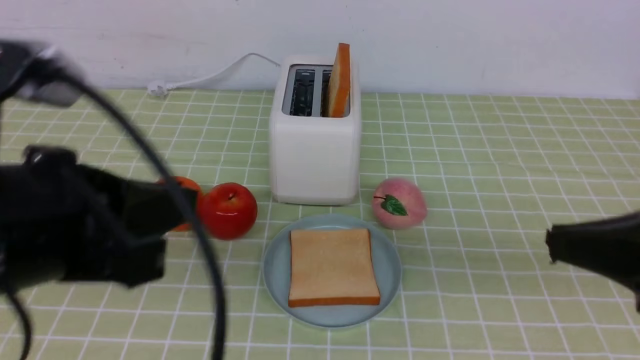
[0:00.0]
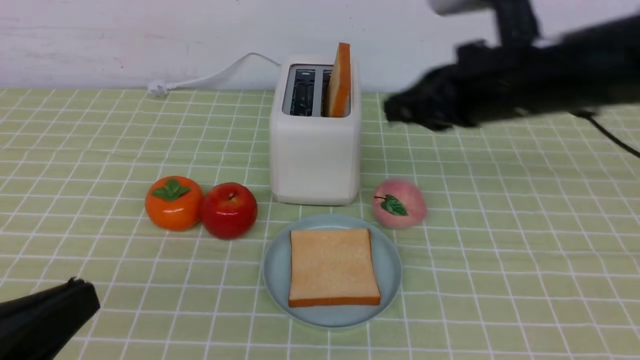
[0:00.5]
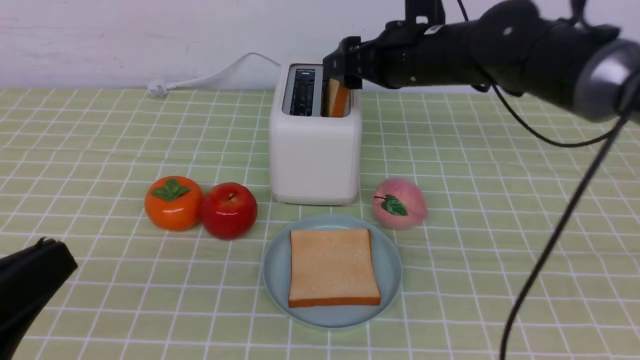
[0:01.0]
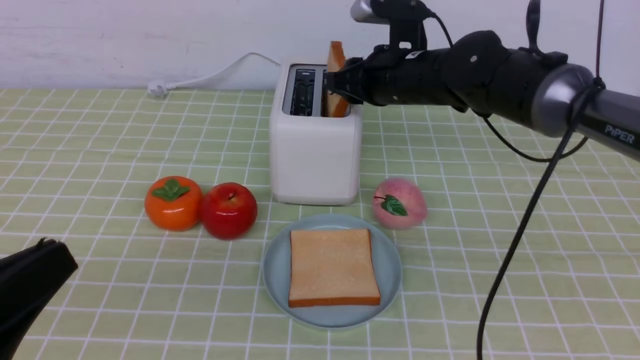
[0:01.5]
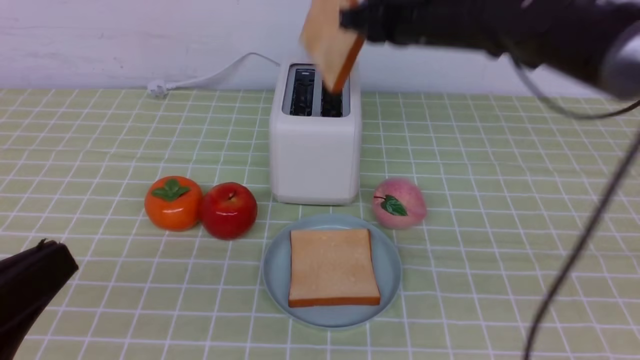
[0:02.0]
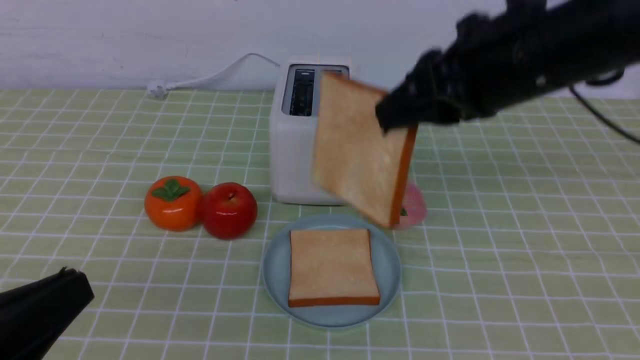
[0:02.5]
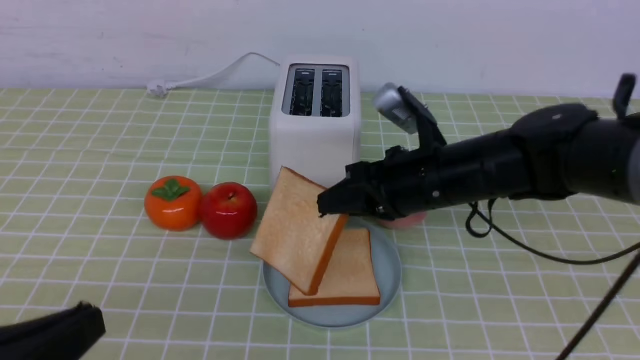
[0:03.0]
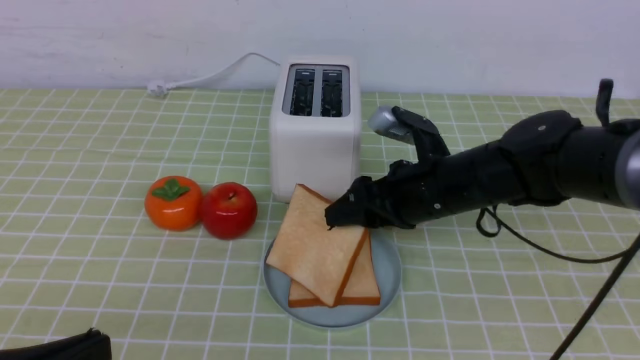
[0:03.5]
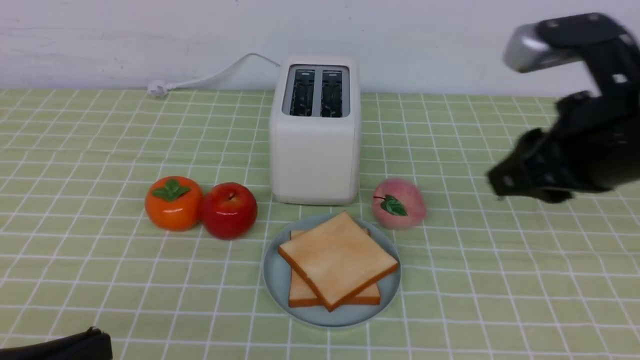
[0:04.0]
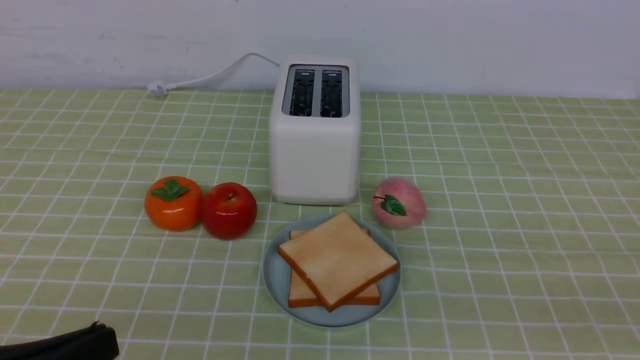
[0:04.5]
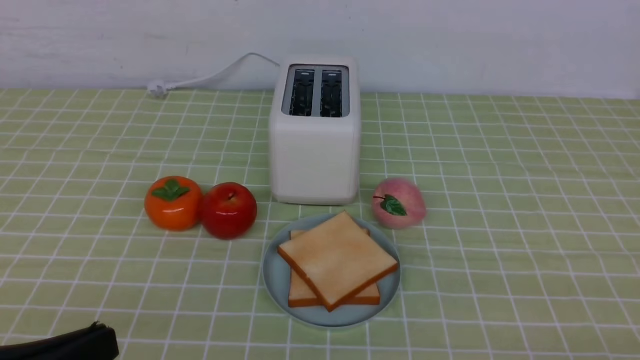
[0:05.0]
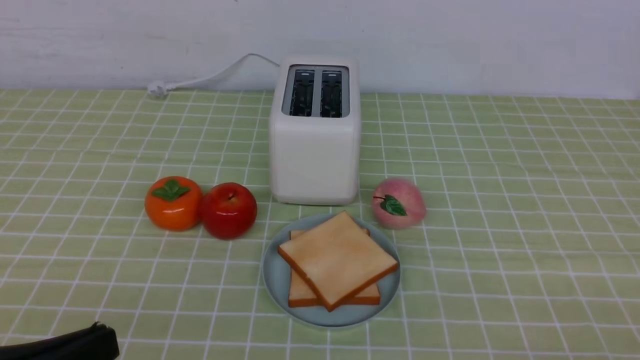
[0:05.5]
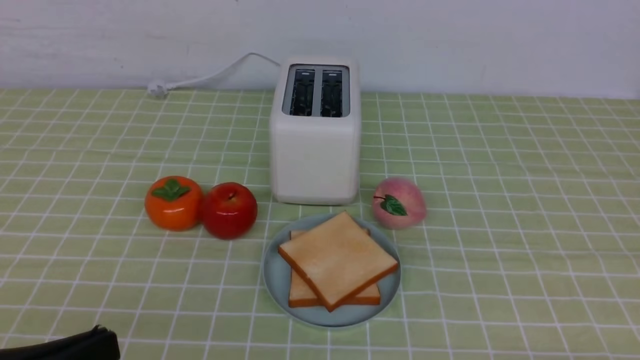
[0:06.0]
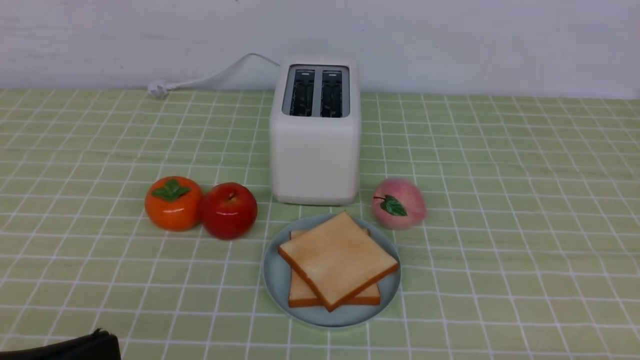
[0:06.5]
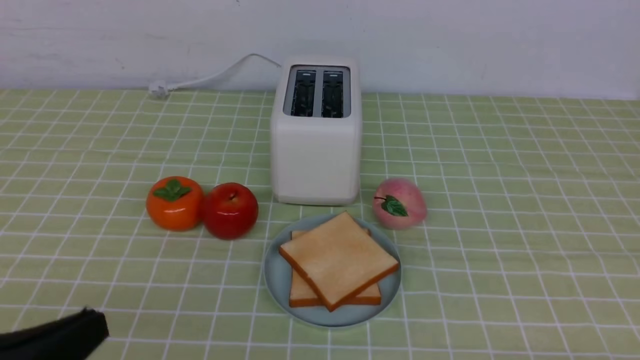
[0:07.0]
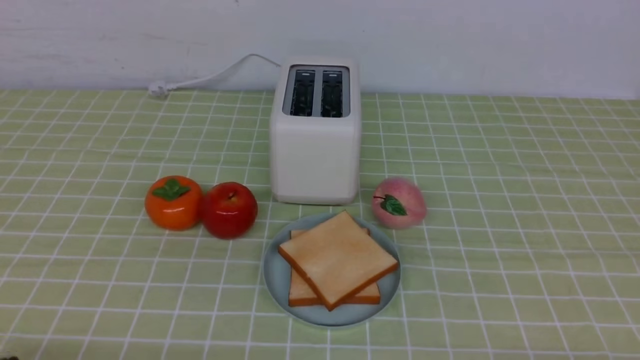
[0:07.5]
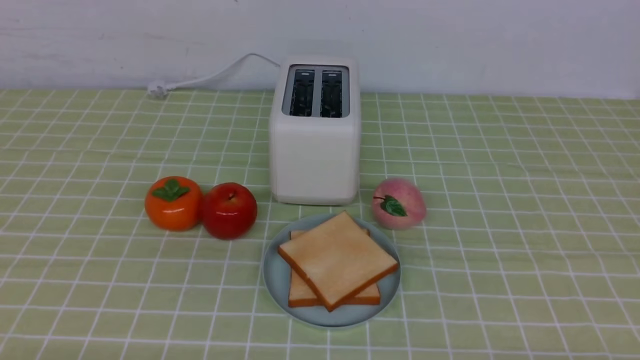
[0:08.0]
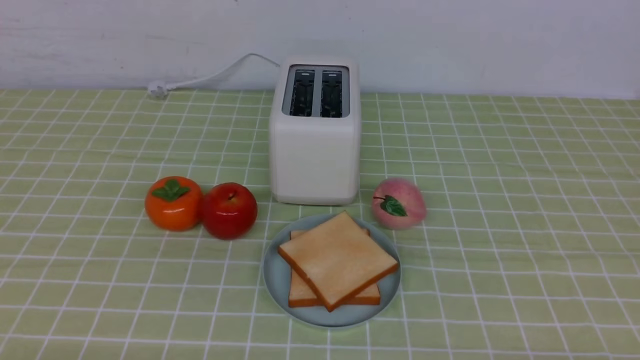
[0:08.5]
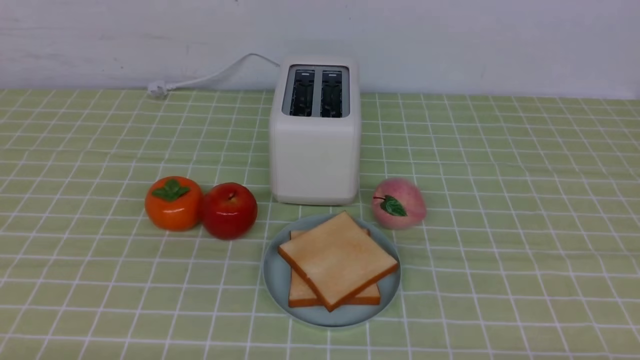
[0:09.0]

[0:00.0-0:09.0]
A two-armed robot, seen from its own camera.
Task of the whole recording: take toasted bread from bread machine on green coffee tablecloth place on plate.
Step, 0:00.0 to 0:02.0: use the right arm to take out a slice of bread.
Step, 0:02.5 to 0:04.0: use the right arm to put a slice of bread into the plate.
0:00.0 to 0:02.0: The right gripper shifts roughly 30 cm forward and to the left, and opens, then closes again. Meanwhile the left gripper heads backward and downward, covering about 10 cm.
0:02.0 to 0:04.5: The right gripper is displaced backward and to the right by about 35 cm, and opens and closes again.
0:07.0 to 0:09.0: The left gripper is displaced downward by about 10 cm.

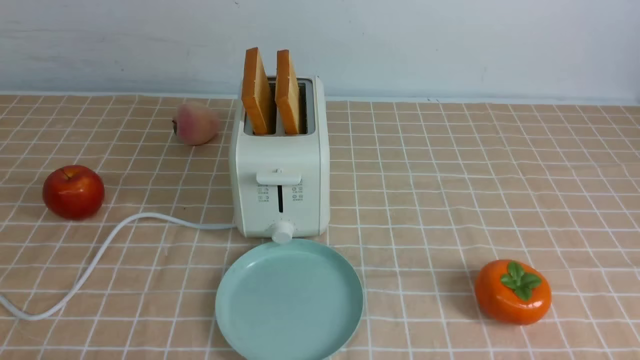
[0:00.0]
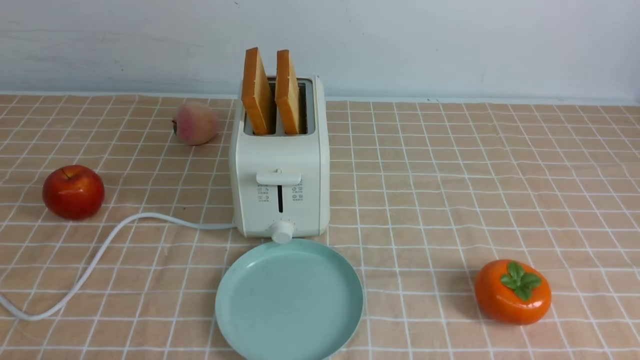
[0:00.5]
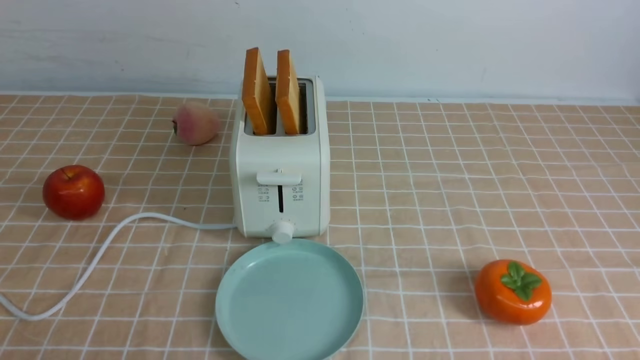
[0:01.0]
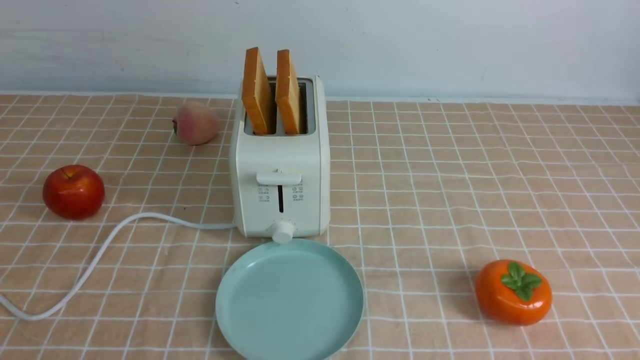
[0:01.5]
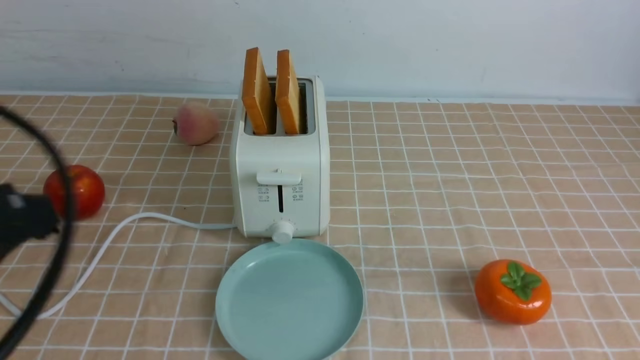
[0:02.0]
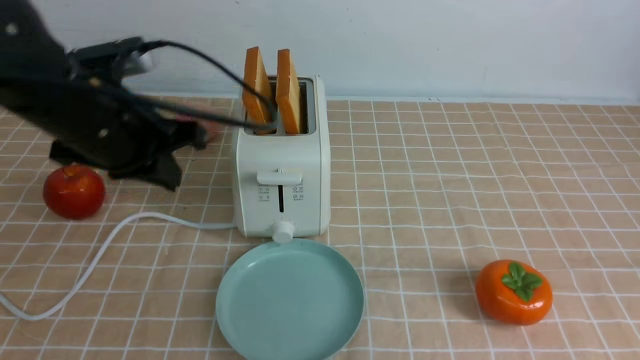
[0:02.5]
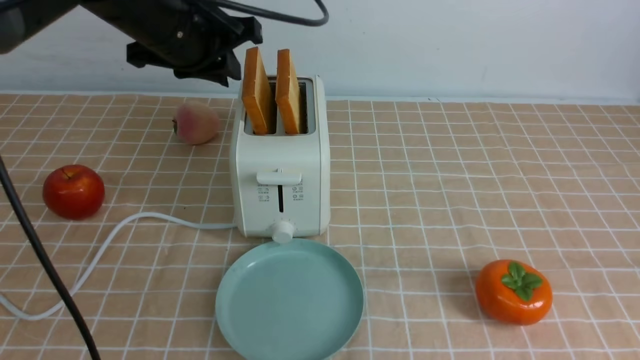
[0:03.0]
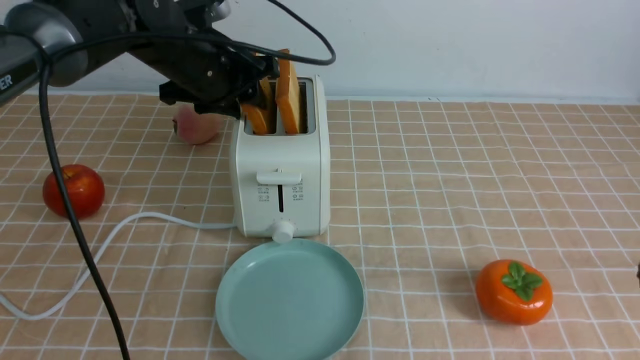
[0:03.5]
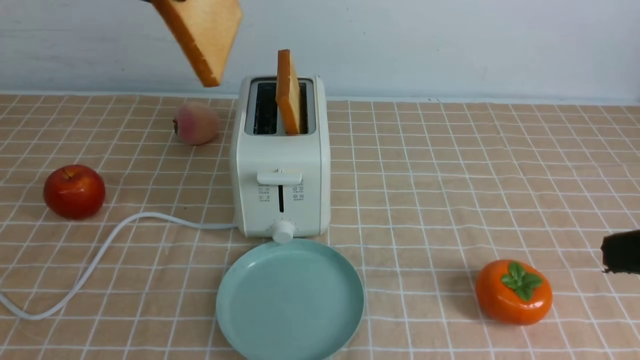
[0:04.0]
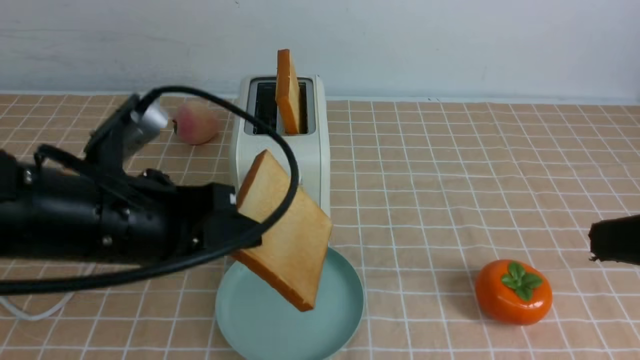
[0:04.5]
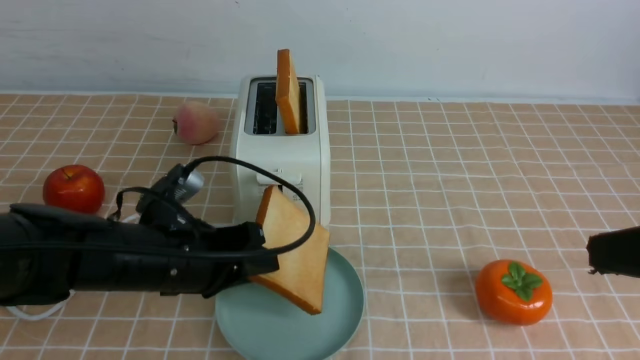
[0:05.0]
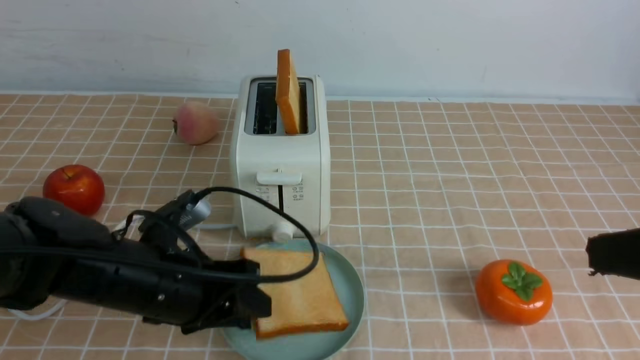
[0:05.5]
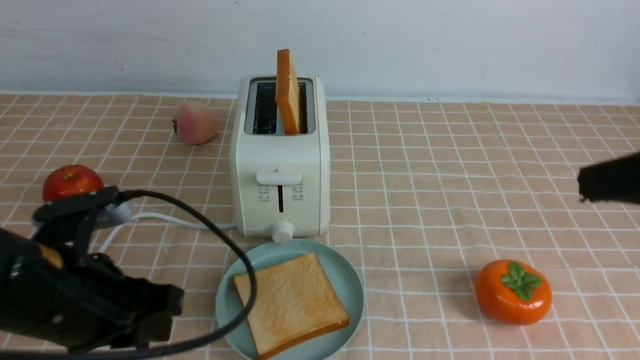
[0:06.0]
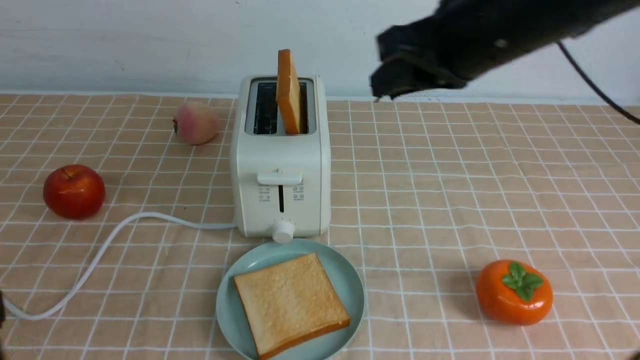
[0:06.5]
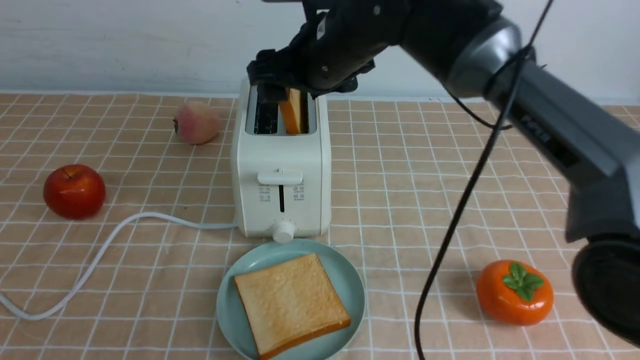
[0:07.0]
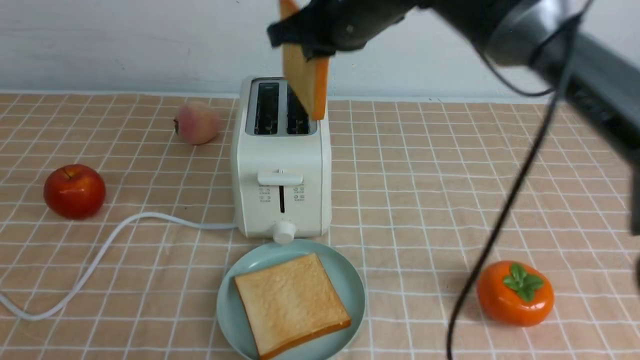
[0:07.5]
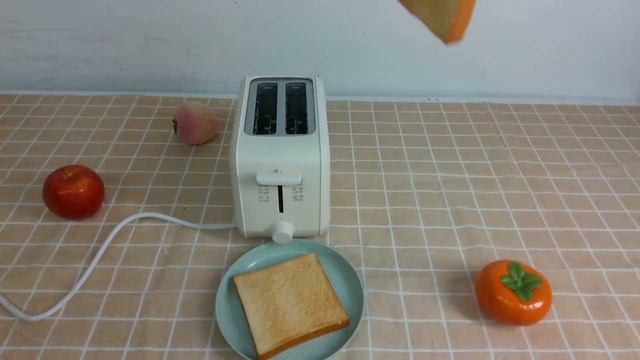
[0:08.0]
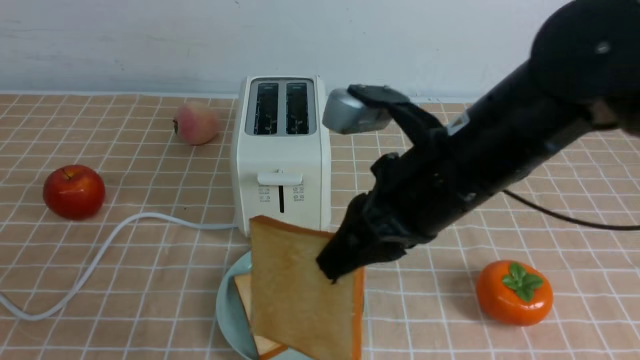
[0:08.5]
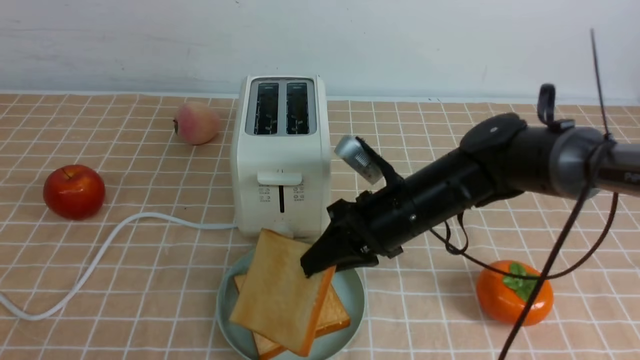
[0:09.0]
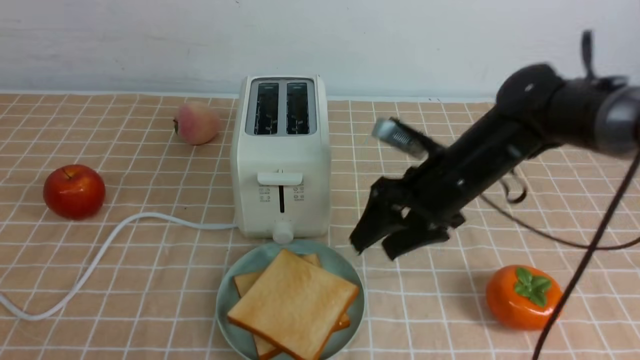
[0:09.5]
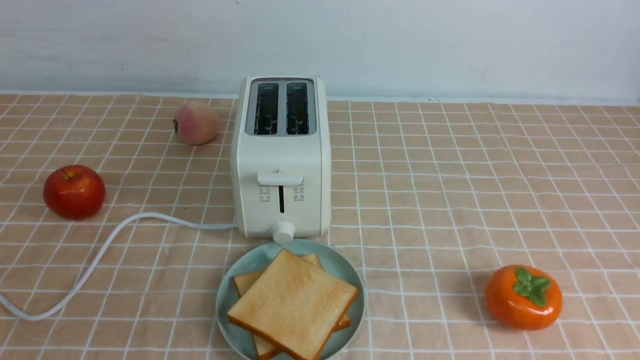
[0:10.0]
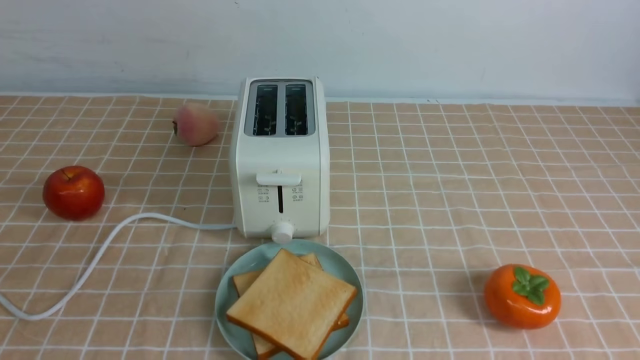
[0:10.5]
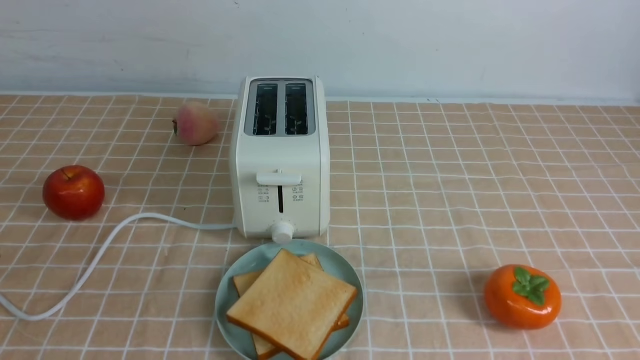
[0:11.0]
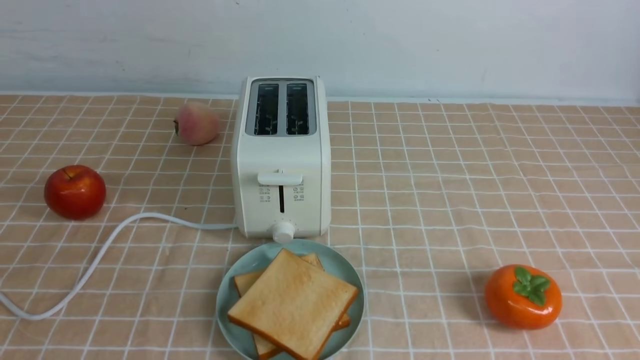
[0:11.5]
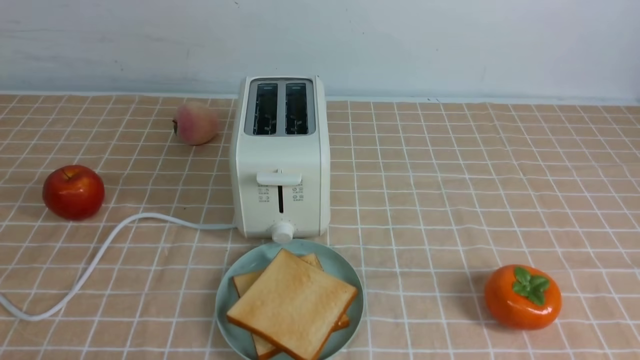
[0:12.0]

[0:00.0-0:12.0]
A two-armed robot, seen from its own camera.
Task of the whole recording: take toasted bread from bread machine on light coffee tablecloth place on plate.
Step, 0:00.0 to 0:03.5: use the left arm to take out a slice of bread.
Step, 0:04.0 to 0:05.5: use the left arm to put a slice of bread into the empty plate.
Step, 0:06.0 to 0:07.0: use the right arm to take out a slice of bread.
Step, 0:07.5 to 0:09.0: use the right arm to put a slice of bread into the plate.
0:00.0 to 0:02.0: The left gripper goes some 20 cm upward and forward, and closes.
0:02.0 to 0:04.0: The left gripper goes roughly 20 cm forward, upward and to the right, and opens and closes again, while the right gripper travels forward by roughly 10 cm.
0:04.0 to 0:06.0: The left gripper heads downward and backward, covering some 20 cm, while the right gripper moves forward, about 5 cm.
0:06.0 to 0:08.0: The left gripper travels backward and upward by roughly 15 cm, and closes. The right gripper shifts roughly 15 cm upward and to the left, travels forward and back again, approximately 25 cm each way, and opens, then closes again.
0:08.0 to 0:10.0: The right gripper is displaced to the right and backward by roughly 15 cm, reaches roughly 30 cm downward, then returns, and opens, then closes once more.
